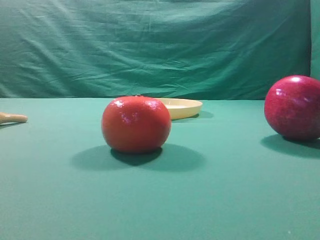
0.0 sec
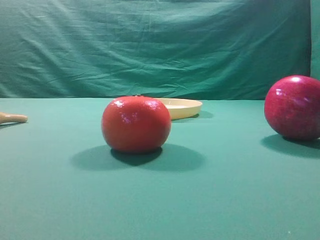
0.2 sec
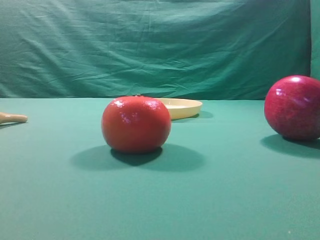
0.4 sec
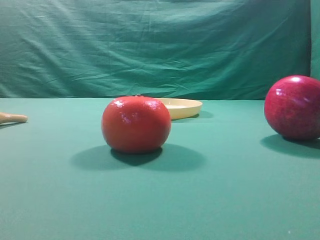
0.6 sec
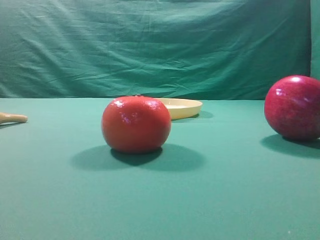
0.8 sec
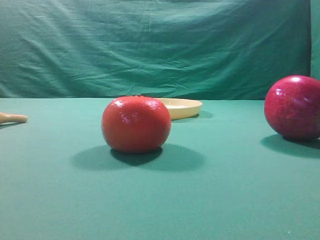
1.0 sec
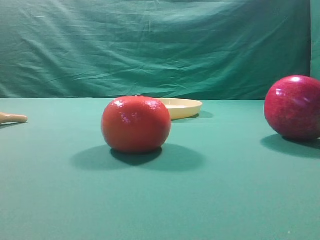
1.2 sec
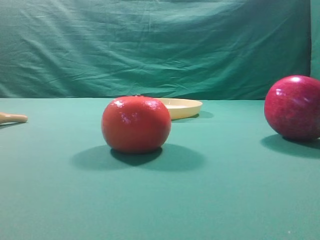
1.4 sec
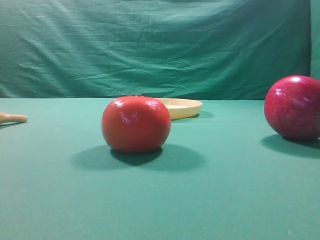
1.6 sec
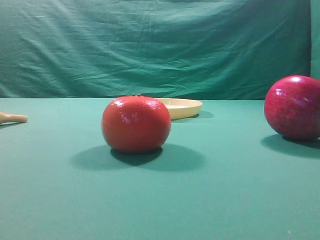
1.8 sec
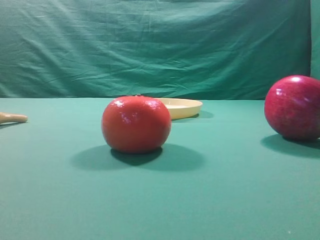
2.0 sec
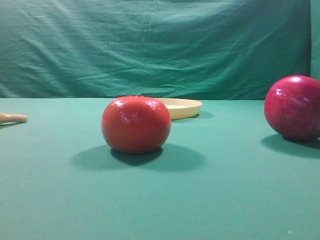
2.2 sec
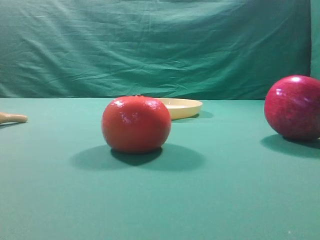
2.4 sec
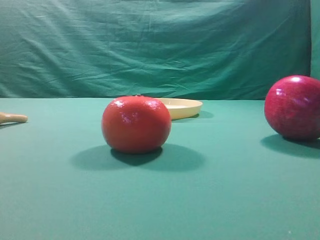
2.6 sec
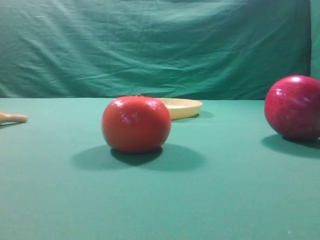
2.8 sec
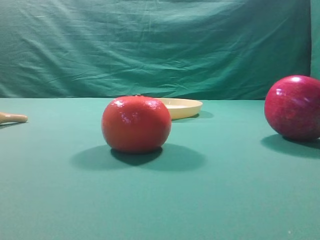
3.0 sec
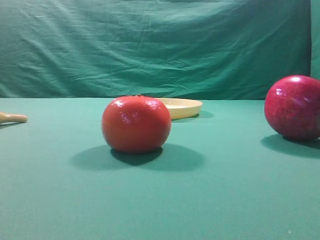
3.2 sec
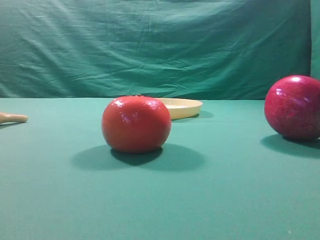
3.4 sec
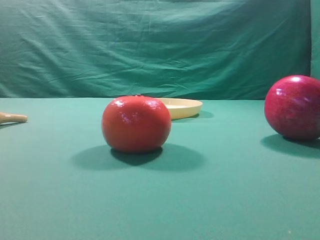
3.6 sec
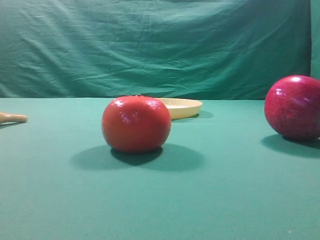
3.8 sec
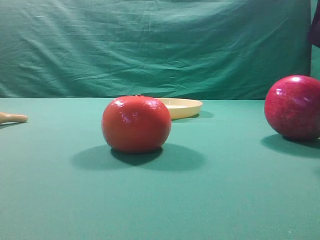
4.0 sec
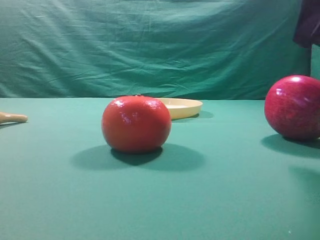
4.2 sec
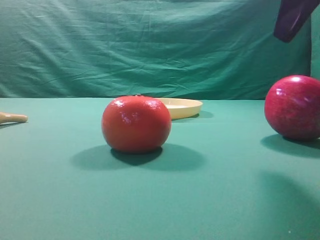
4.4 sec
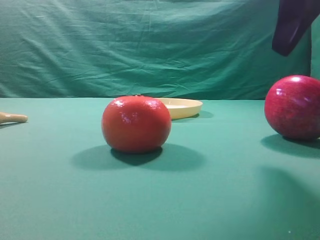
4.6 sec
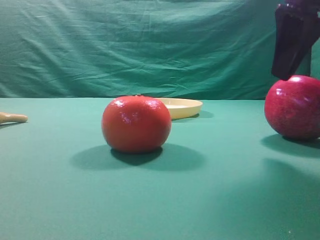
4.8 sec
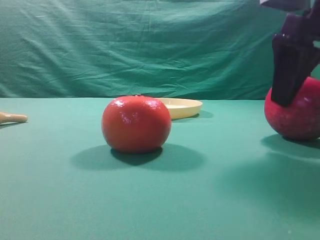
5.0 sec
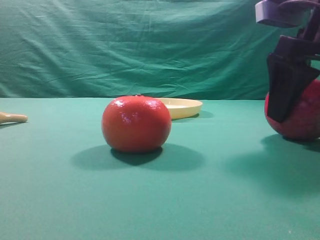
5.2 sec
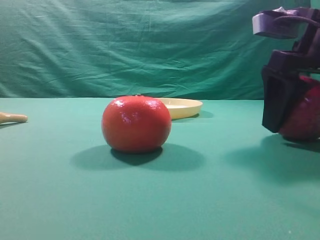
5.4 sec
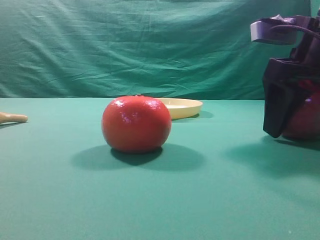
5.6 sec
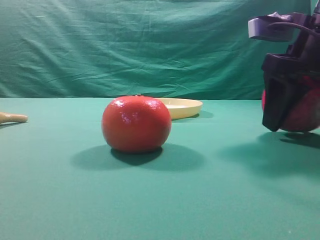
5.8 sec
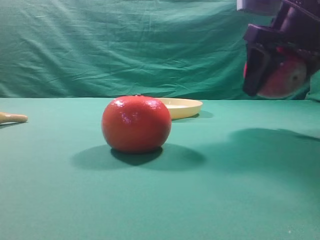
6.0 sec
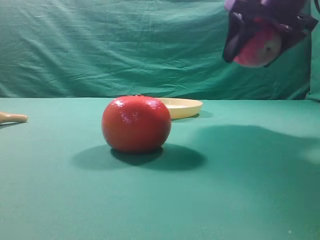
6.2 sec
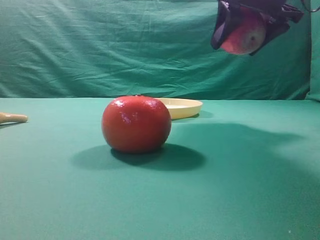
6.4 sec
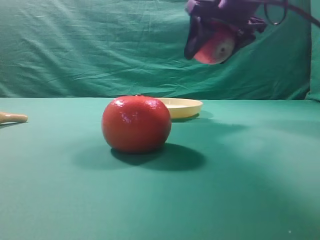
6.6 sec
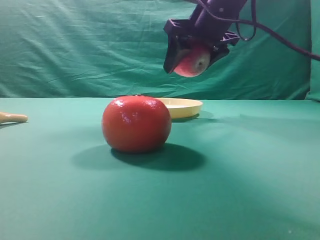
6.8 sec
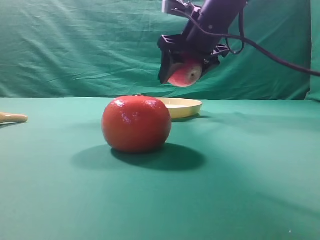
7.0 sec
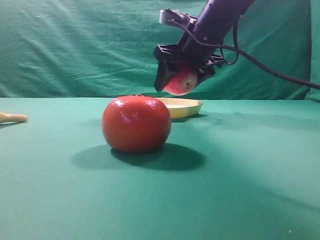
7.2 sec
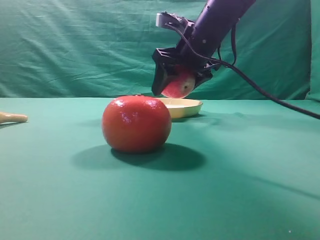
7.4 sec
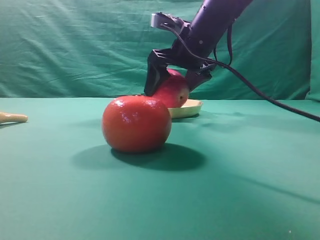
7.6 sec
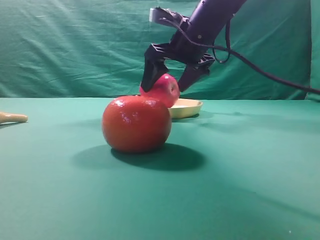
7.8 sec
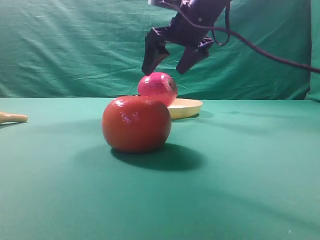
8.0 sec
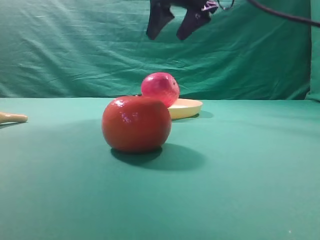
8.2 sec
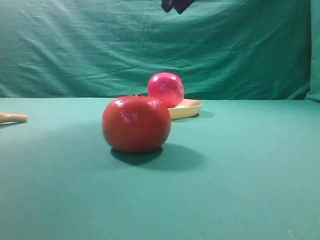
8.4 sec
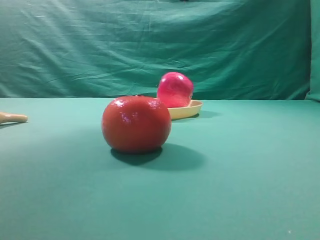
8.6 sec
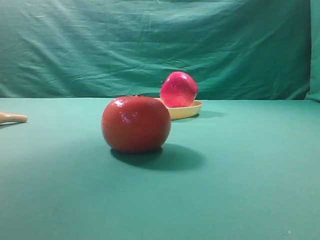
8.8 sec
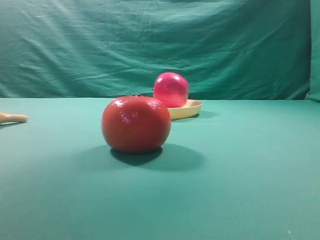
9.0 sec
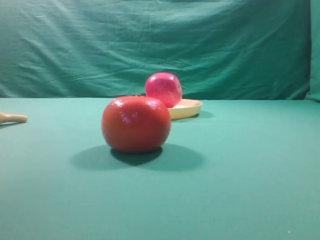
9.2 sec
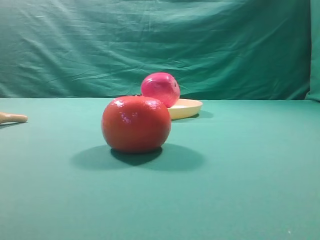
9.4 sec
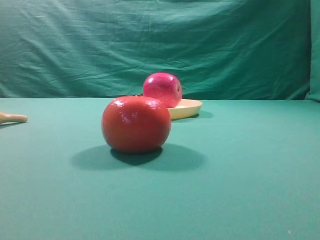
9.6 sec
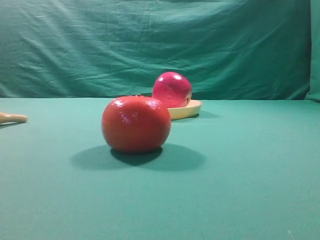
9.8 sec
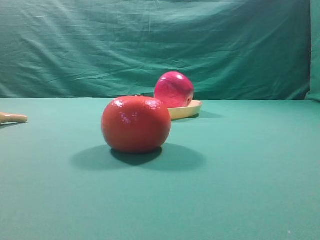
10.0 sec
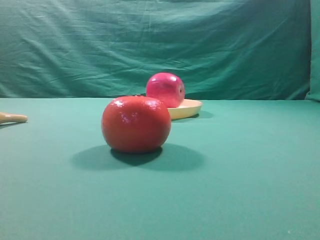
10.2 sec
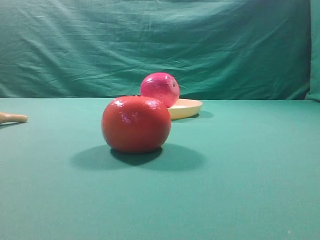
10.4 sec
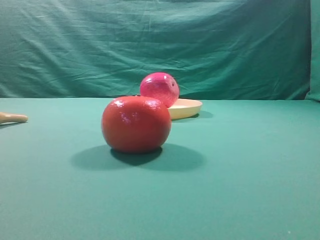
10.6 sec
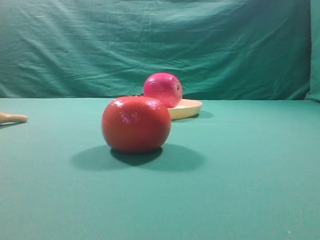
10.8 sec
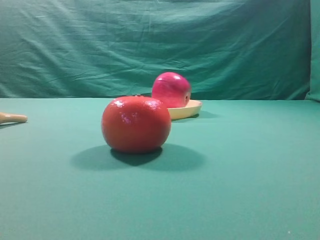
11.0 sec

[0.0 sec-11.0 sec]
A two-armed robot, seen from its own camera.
Task of the whole recording: grasp the apple and place it into the yellow plate.
Step, 0.0 sec to 5.8 sec: Grasp the fruit that can keep the doctor away.
Step, 6.0 sec to 8.0 sec: Place the picked object into the yellow plate.

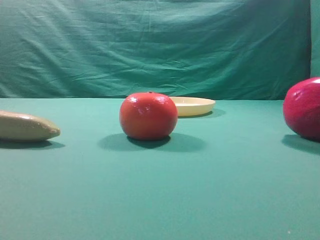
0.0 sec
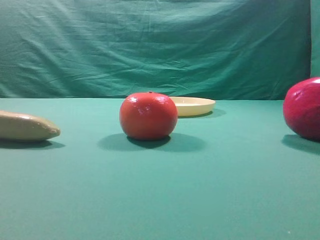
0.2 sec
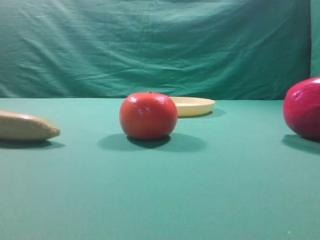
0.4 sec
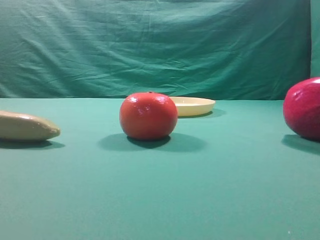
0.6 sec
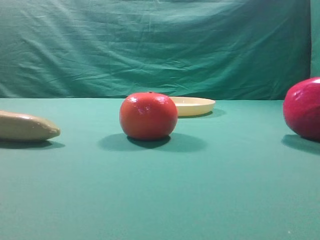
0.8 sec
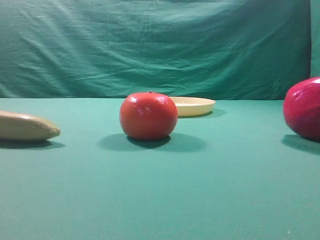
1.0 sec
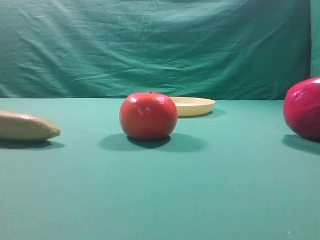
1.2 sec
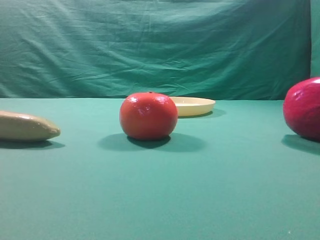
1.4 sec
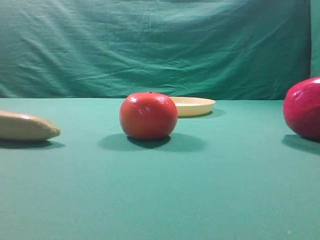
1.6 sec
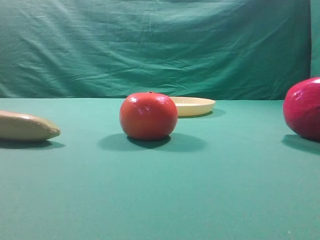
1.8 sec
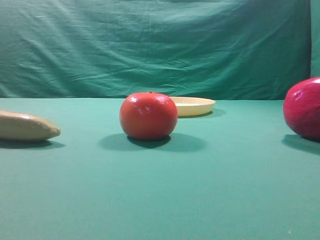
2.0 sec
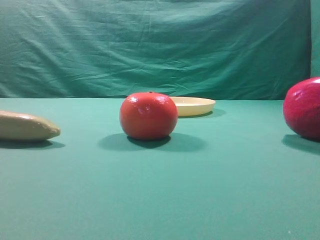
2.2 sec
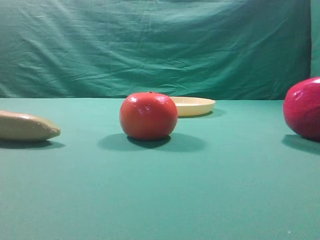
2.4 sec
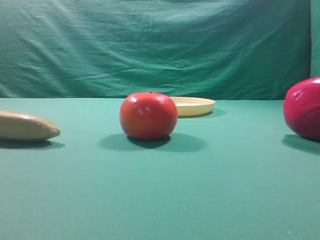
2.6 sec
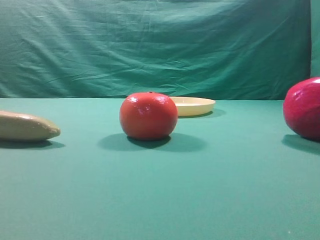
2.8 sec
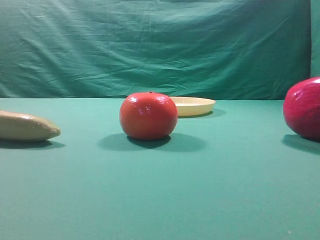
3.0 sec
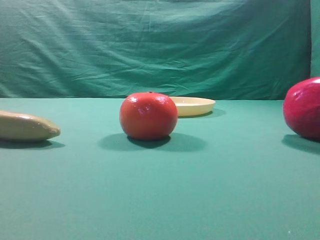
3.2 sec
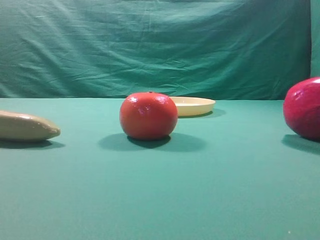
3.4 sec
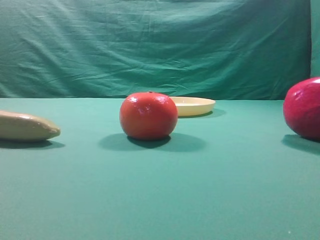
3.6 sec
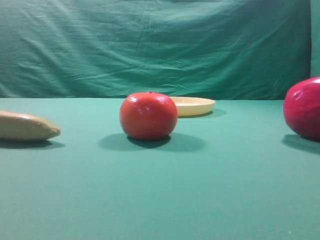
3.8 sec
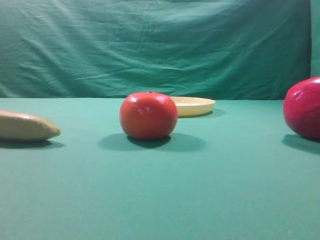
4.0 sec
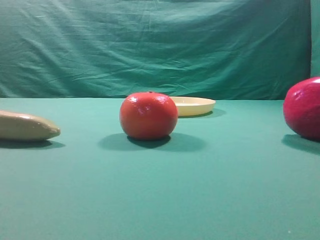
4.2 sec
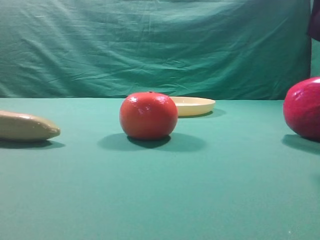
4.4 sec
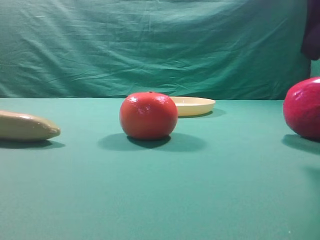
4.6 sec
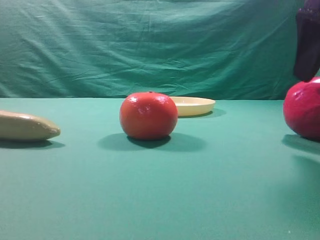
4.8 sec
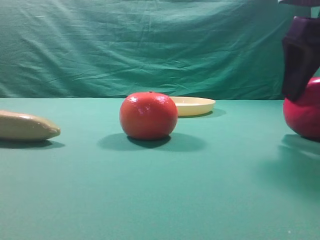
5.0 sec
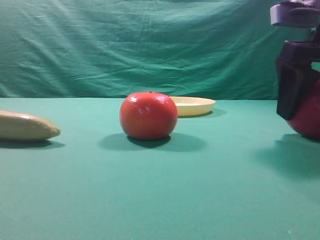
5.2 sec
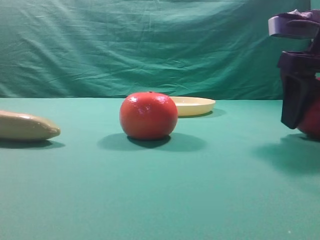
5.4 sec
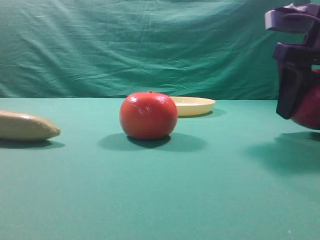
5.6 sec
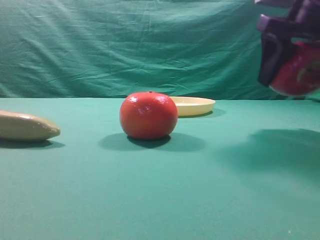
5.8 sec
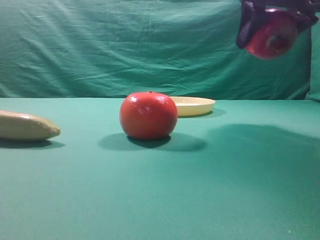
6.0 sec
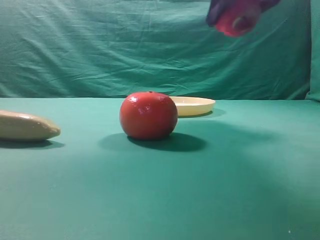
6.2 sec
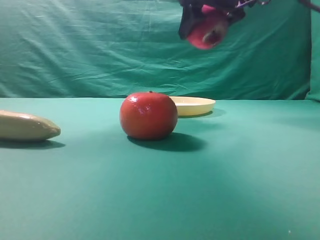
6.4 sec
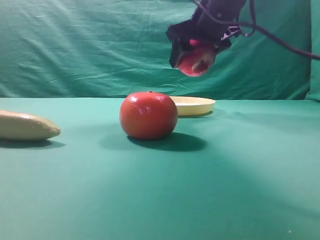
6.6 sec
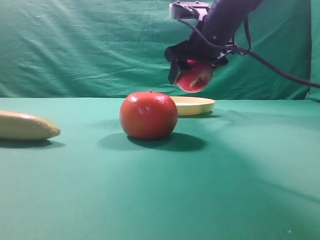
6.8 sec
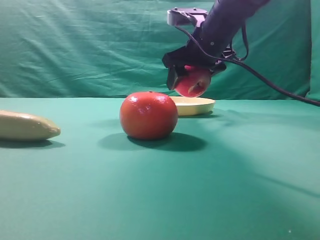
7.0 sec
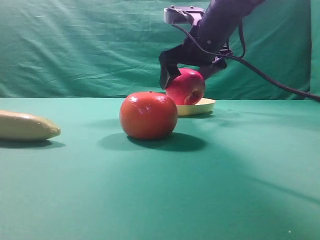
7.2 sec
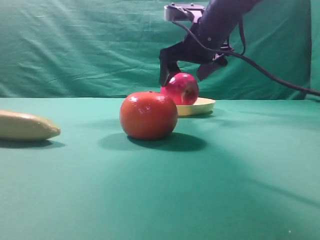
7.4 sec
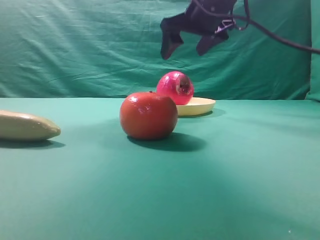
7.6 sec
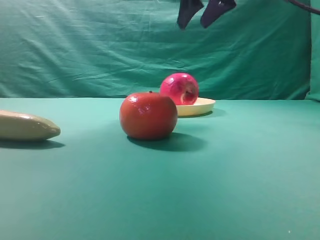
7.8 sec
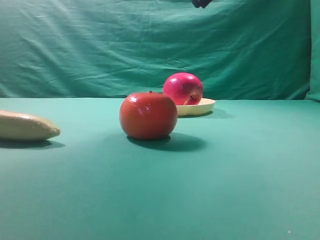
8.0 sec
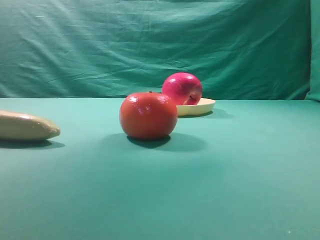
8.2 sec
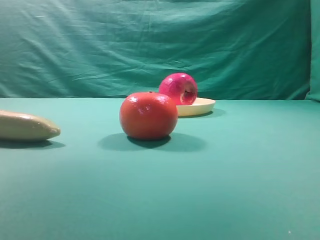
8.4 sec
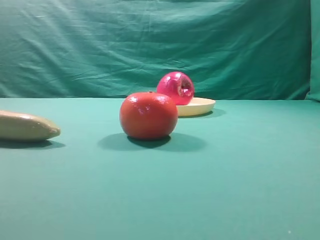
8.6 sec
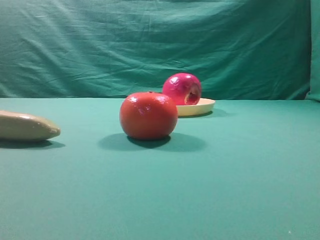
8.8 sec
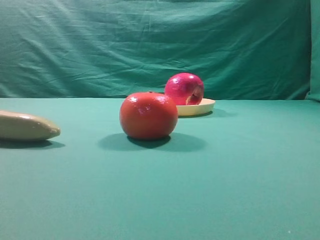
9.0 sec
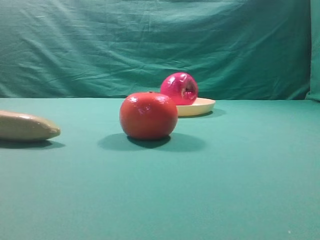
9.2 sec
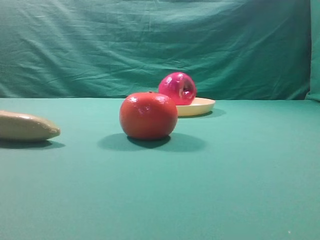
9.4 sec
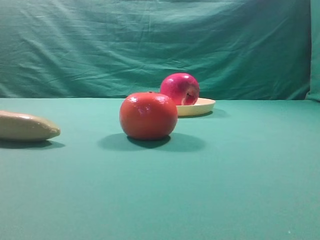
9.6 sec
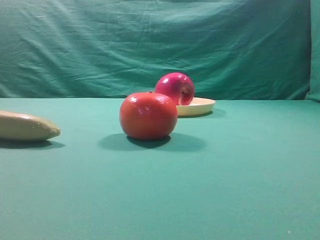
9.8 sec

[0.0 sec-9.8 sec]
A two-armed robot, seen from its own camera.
Task of the whole recording: grasp the apple and place it into the yellow plate.
Step, 0.0 sec to 5.8 sec: Grasp the fruit that can keep the doctor away.
Step, 6.0 sec to 7.4 sec: Place the picked object into the yellow plate.
